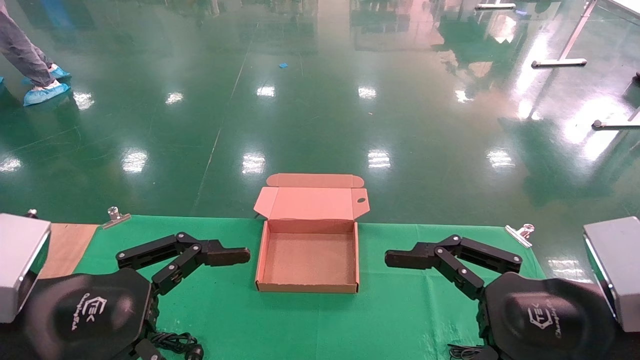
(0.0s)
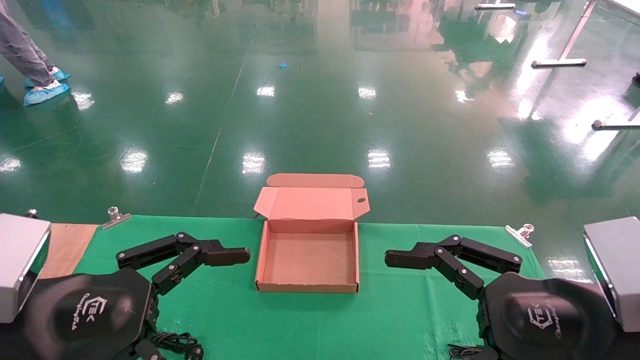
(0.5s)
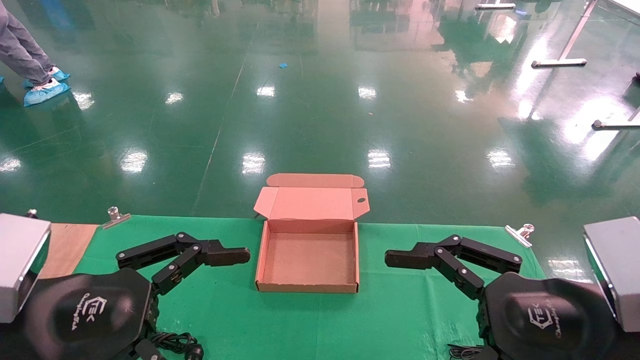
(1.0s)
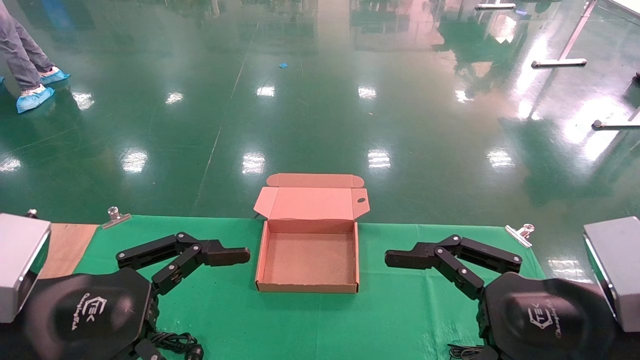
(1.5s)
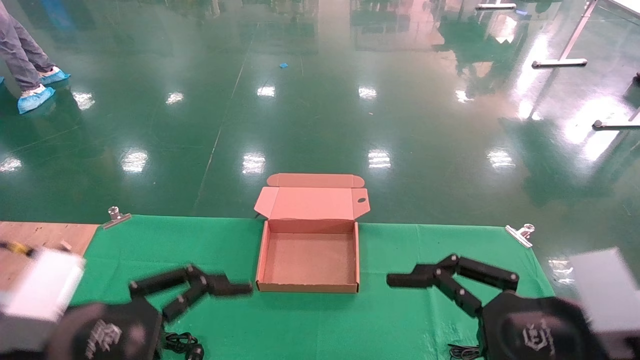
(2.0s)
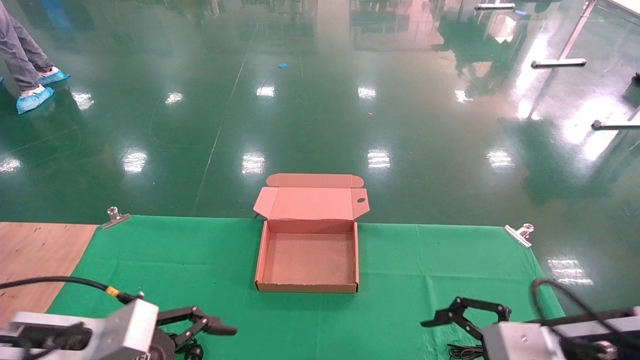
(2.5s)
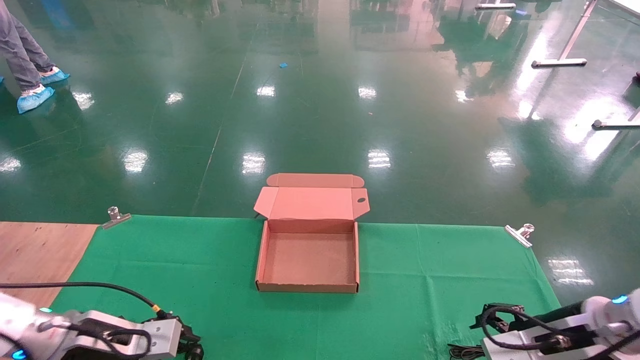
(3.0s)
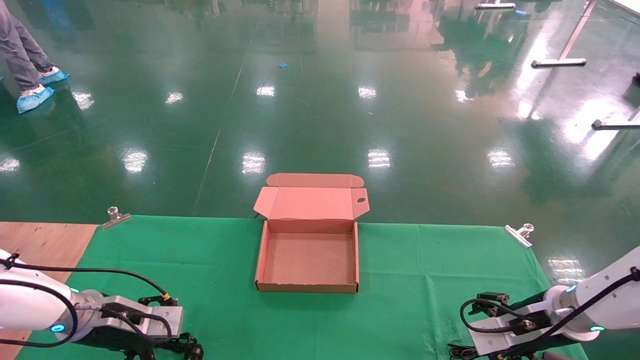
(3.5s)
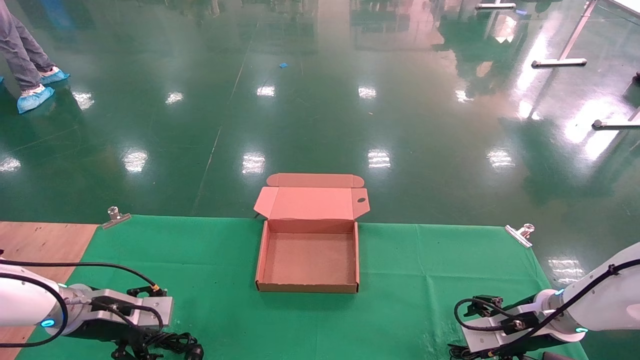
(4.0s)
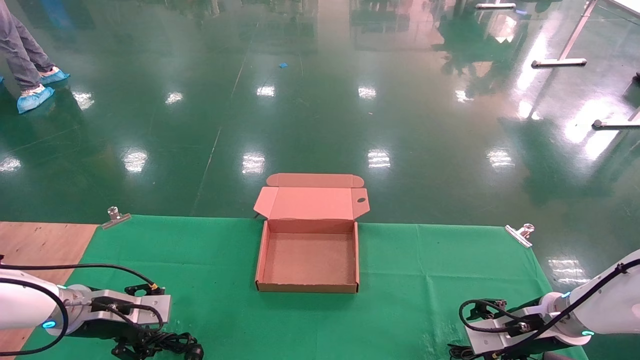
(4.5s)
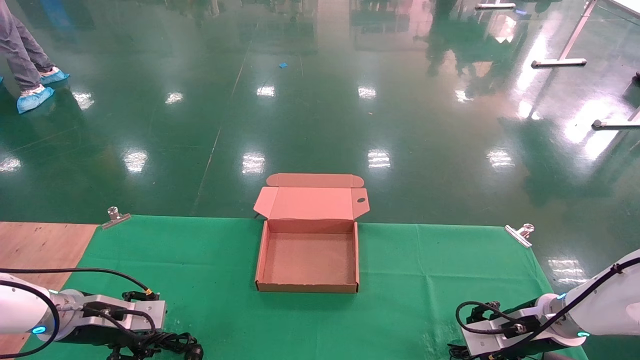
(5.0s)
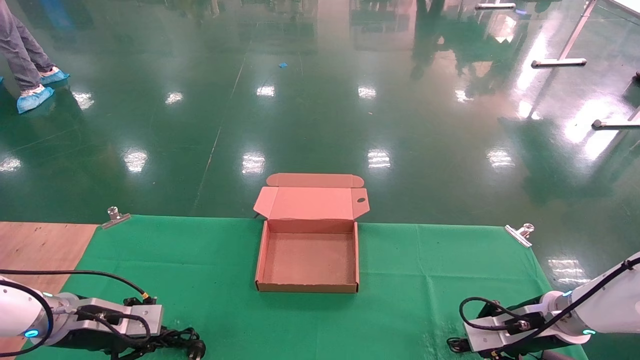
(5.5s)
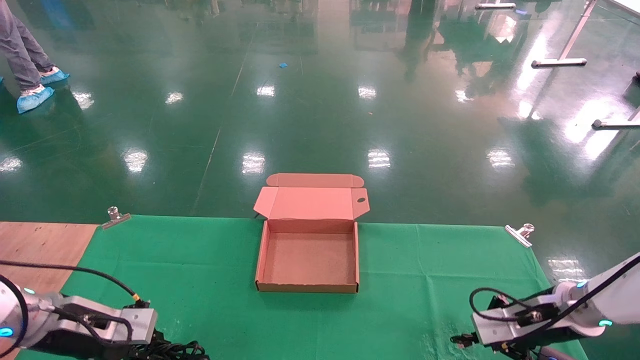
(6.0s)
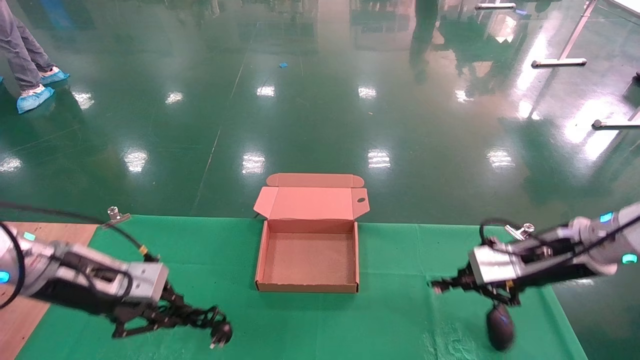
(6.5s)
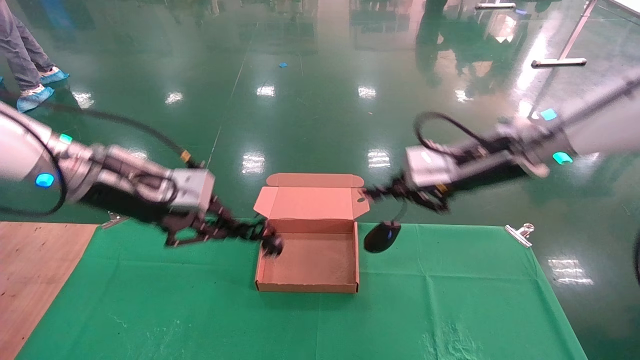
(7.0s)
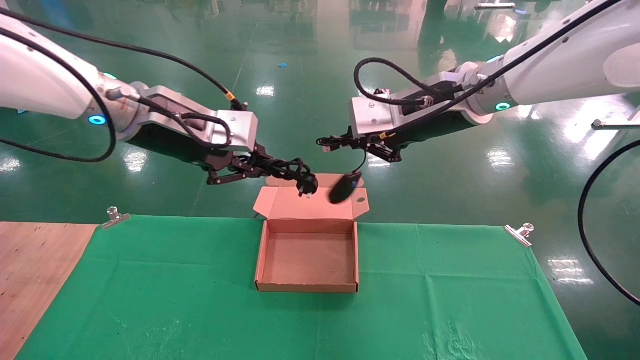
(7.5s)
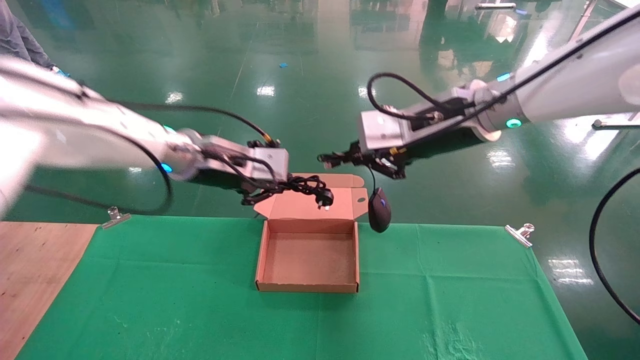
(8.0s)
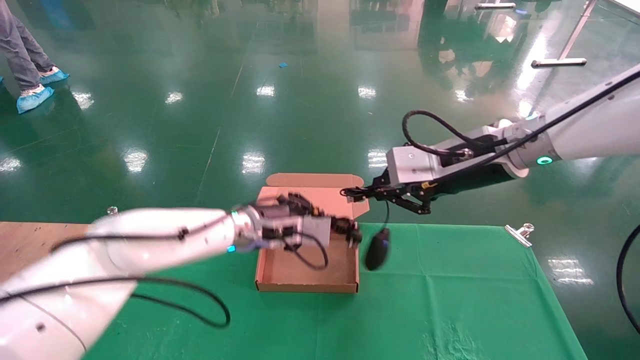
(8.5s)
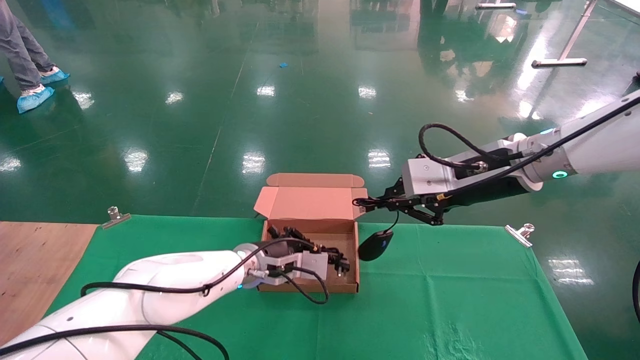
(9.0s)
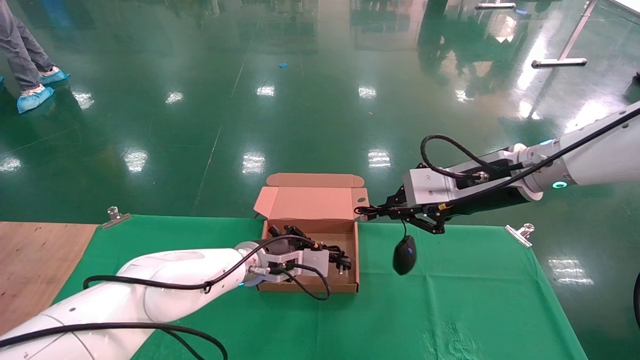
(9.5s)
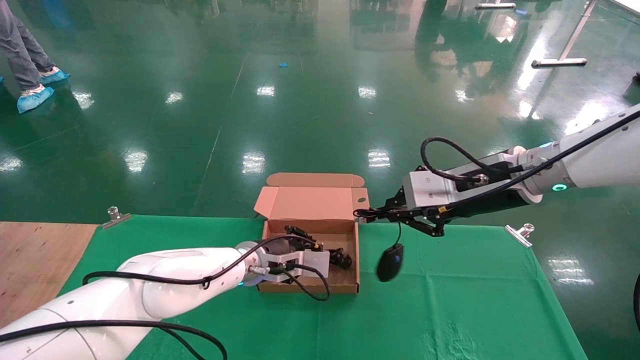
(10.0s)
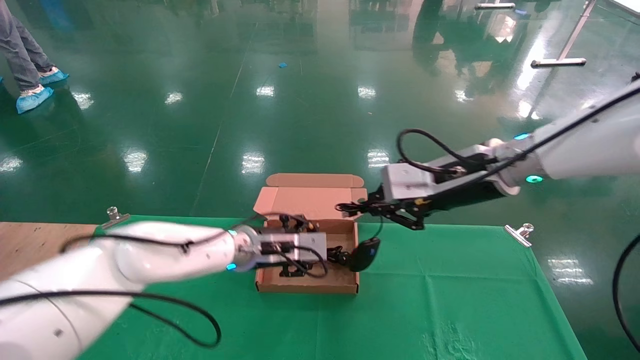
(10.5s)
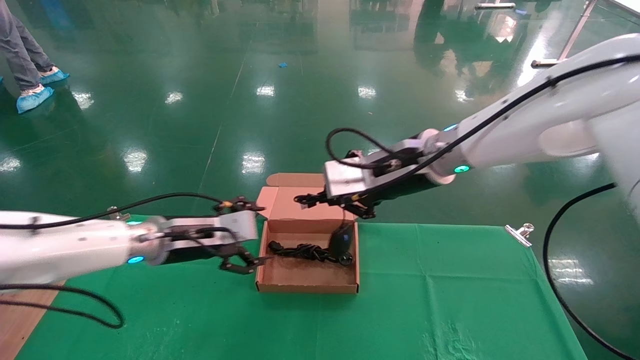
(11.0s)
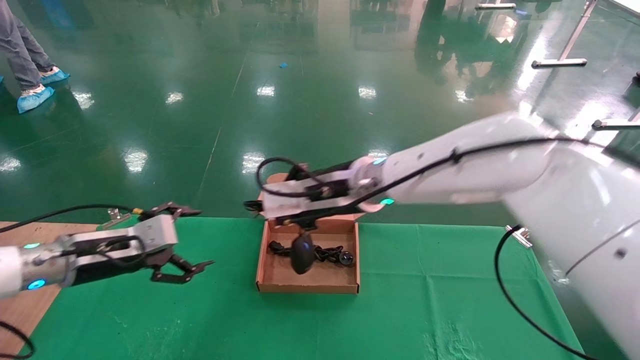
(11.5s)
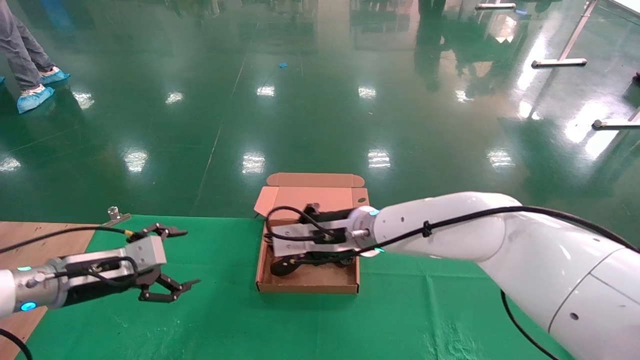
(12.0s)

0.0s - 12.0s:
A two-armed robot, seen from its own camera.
Step, 2.0s - 6.5s: Grab and lift both the mouse and power cord from the accessory packaging area at the same time.
0.0s - 2.0s: The grippers make only small movements.
2.0s - 4.0s: The left gripper goes some 25 cm forward, downward and to the left. Meanwhile the right gripper travels forward and downward by some 25 cm.
4.0s - 6.0s: The right gripper closes. The left gripper closes up.
6.0s - 8.0s: The left gripper travels to the right and upward by some 30 cm, while the right gripper travels upward and to the left by some 30 cm.
8.0s - 10.0s: The left gripper moves downward, some 20 cm, while the right gripper travels downward and to the right by some 10 cm.
10.0s - 12.0s: The right gripper moves to the left and downward, approximately 20 cm, while the left gripper heads to the left, covering roughly 25 cm, and opens up.

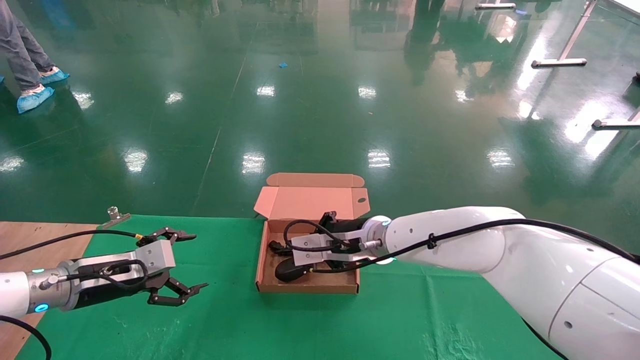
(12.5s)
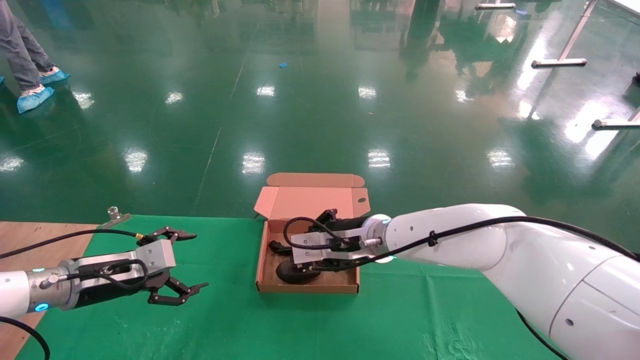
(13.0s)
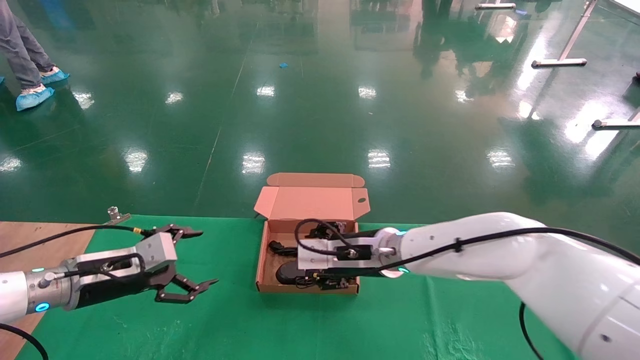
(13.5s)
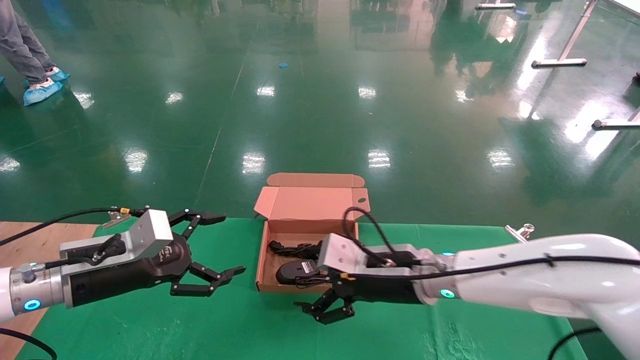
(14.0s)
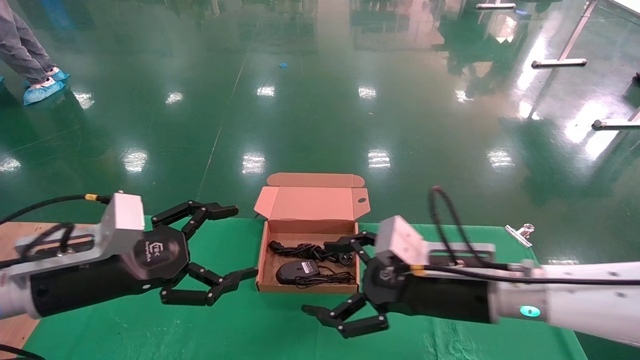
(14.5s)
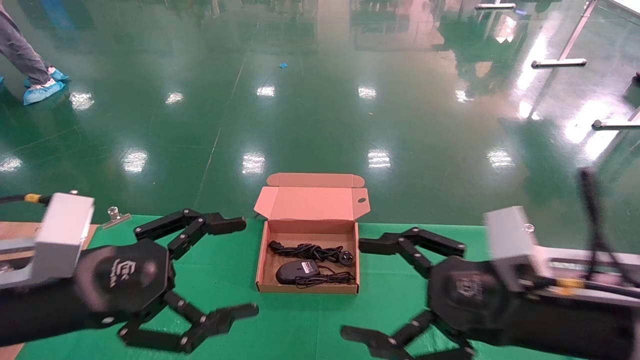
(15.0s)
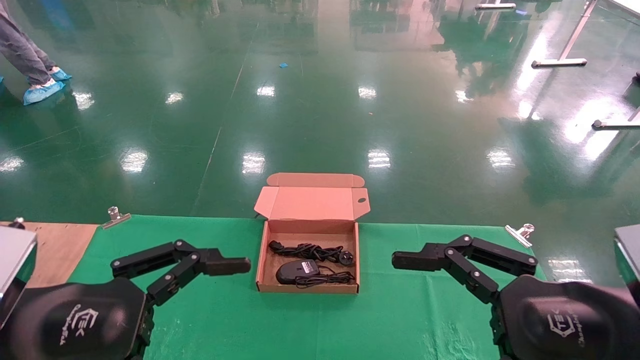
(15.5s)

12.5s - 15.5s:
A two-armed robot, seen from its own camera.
12.5s - 14.0s: The left gripper travels backward by approximately 5 cm. Meanwhile the right gripper moves backward and to the right, about 10 cm, and opens up.
14.0s - 15.5s: The right gripper heads backward and to the right, covering some 25 cm. The left gripper travels backward by some 15 cm.
